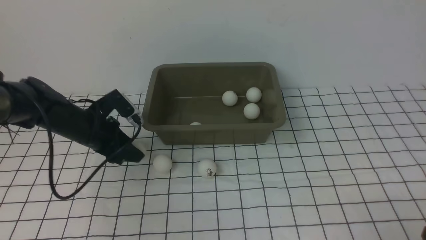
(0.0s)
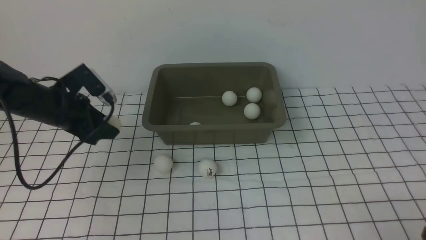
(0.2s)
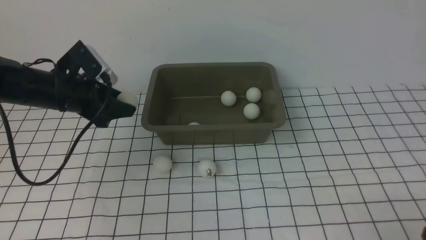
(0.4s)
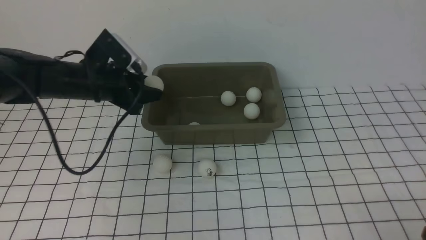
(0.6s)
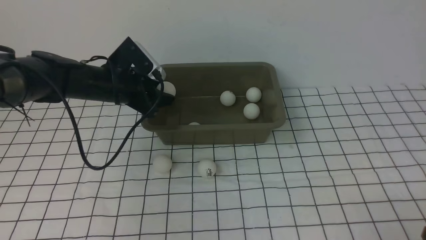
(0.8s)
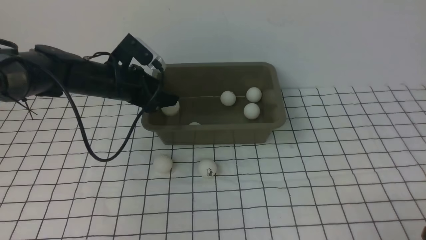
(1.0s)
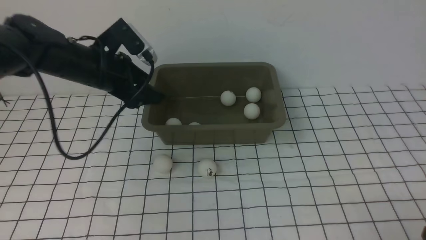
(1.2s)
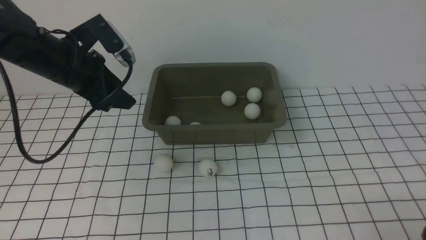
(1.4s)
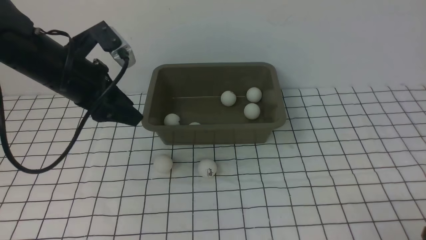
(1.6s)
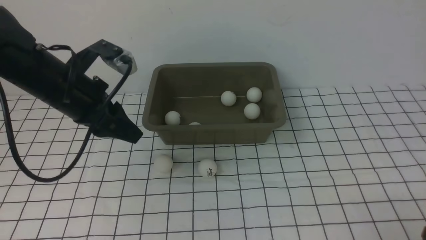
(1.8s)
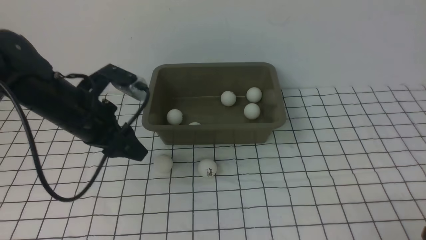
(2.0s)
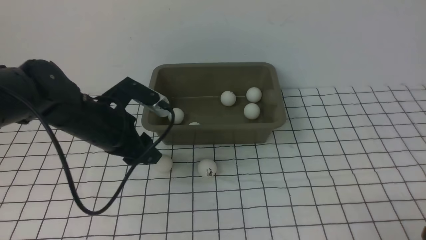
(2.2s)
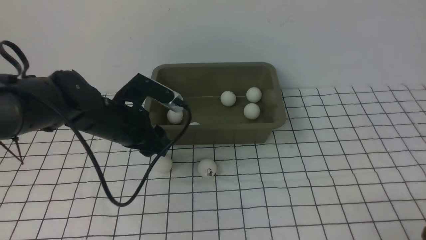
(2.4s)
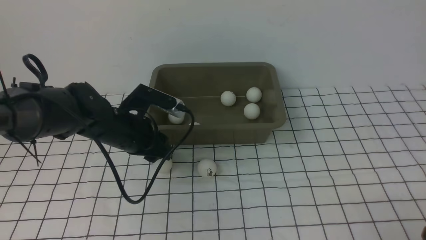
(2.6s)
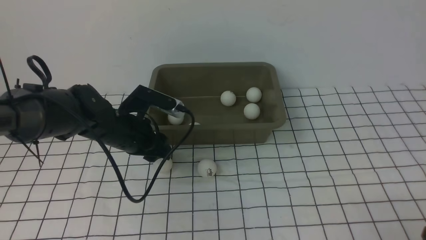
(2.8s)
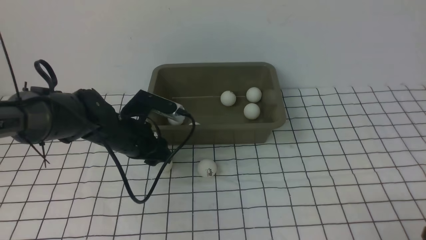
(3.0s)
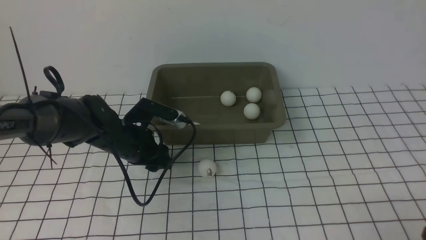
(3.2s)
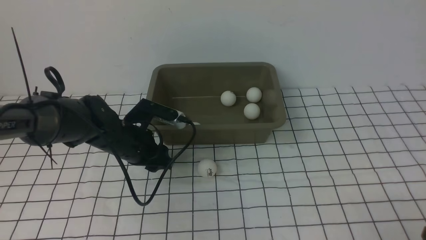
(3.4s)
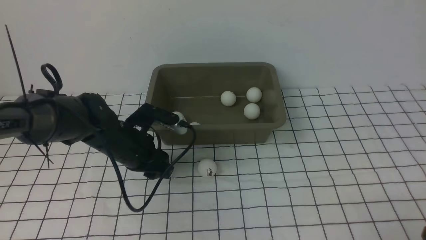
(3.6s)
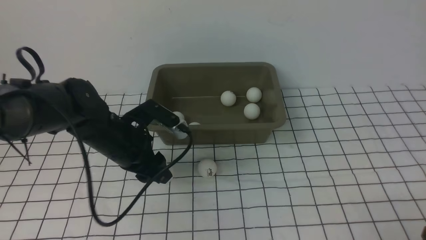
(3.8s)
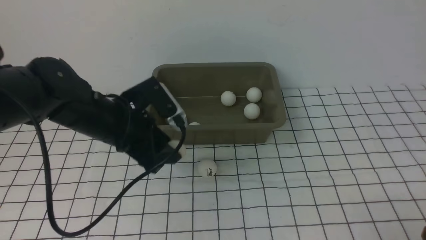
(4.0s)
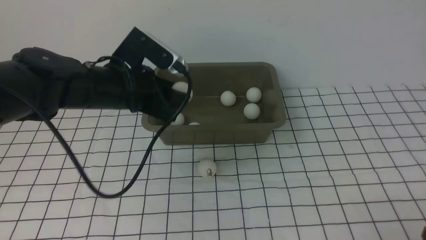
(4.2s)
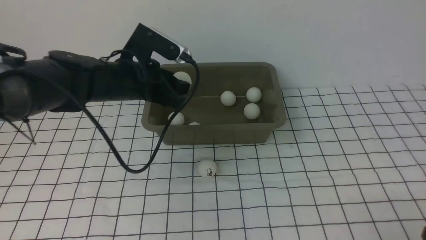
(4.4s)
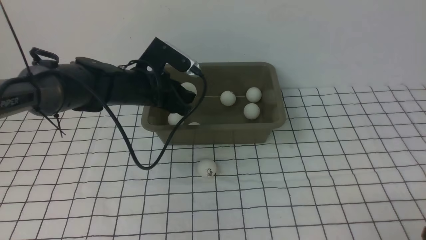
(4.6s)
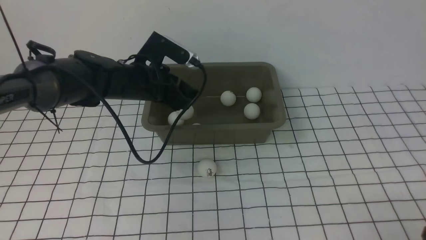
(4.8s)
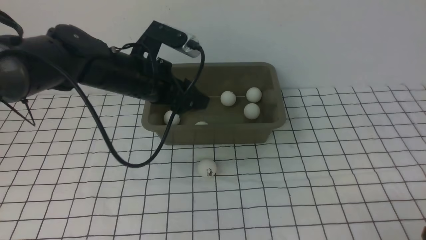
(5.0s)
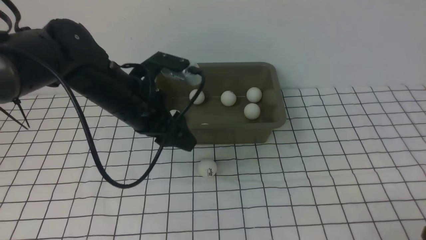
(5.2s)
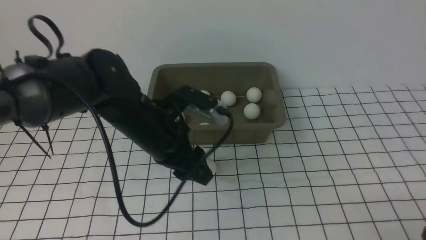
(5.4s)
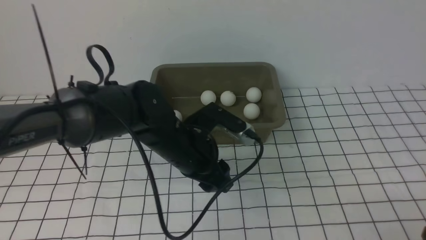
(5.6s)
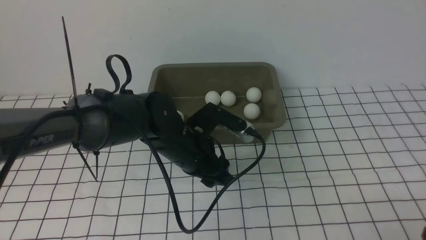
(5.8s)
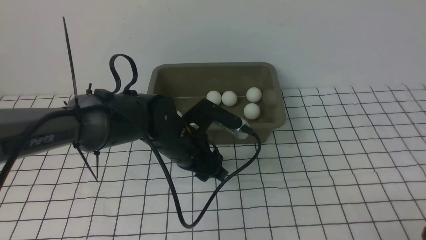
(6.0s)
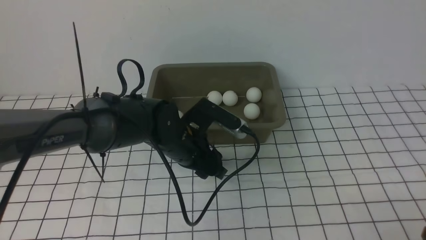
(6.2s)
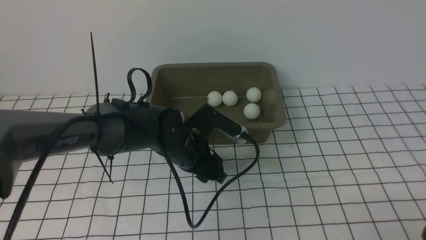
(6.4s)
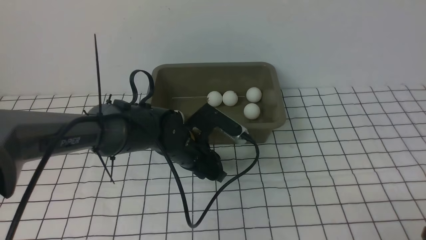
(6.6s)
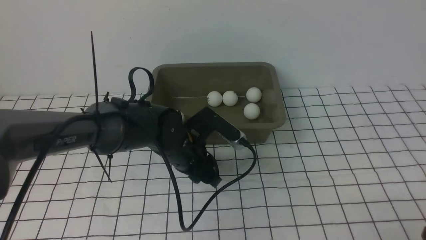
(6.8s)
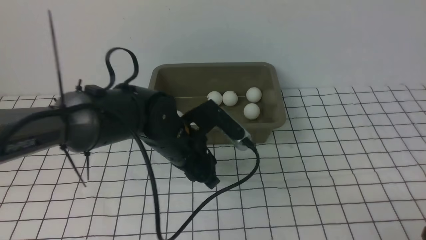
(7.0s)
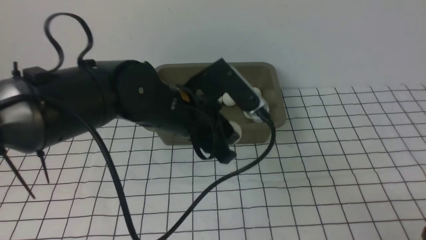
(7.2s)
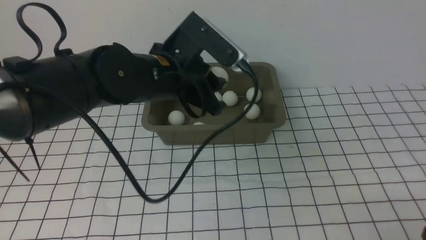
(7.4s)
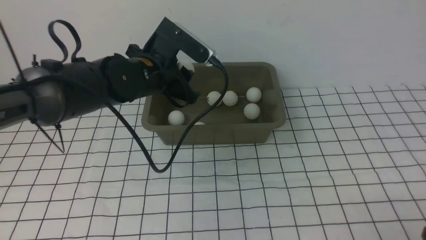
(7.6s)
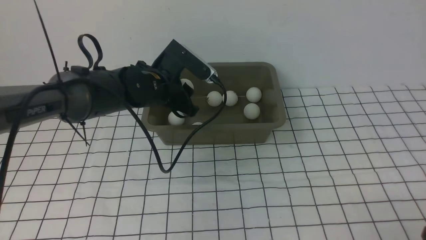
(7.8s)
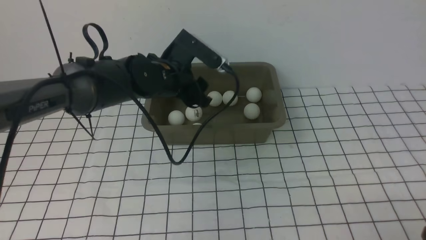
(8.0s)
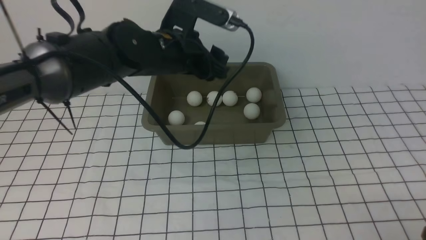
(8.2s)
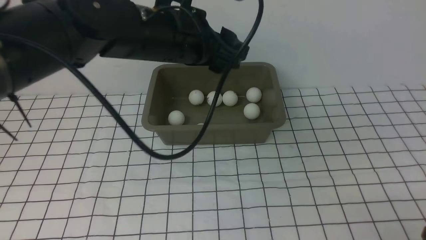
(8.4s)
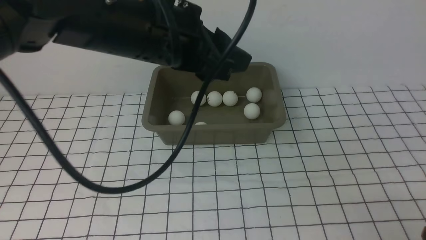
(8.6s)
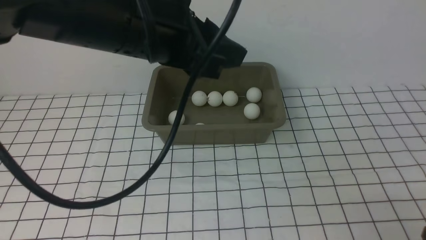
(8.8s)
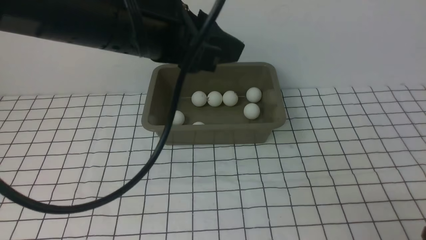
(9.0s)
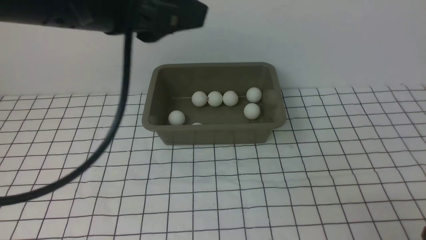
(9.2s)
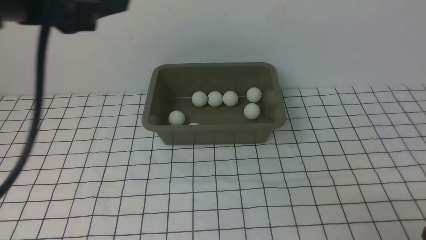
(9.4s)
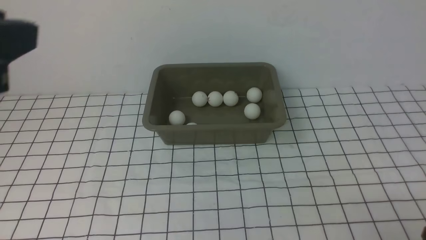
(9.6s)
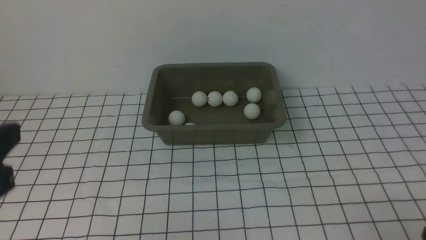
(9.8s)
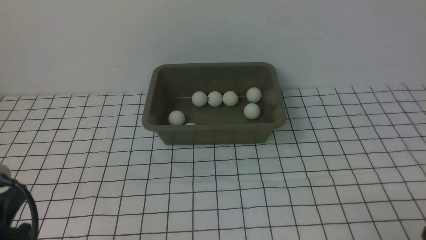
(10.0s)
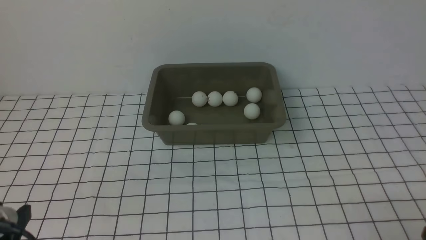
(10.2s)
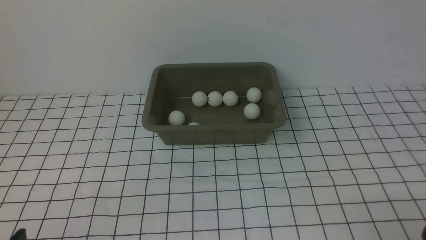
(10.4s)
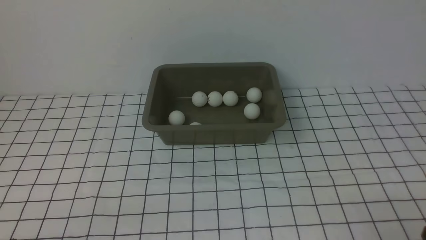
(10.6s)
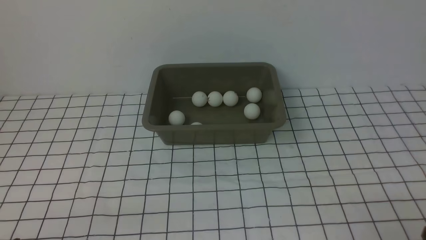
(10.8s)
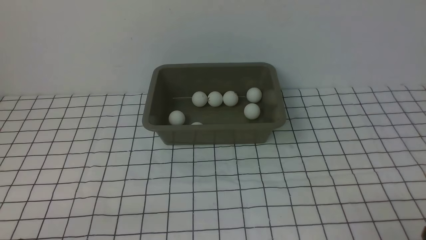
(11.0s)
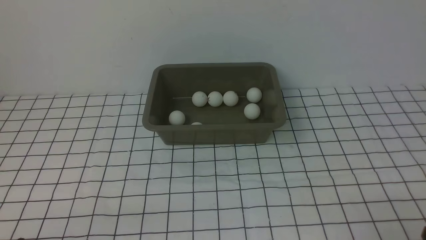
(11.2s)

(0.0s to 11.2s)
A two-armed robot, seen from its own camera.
Step, 0.4s - 1.0s: use the left arm to put the table tennis ball into the box.
Step, 1.4s - 4.0s: use the left arm to clamp the table tennis ball closest to it.
Step, 4.2s - 4.8s: use the left arm to put the table tennis ball into the box.
Step, 5.0s - 7.0s: use the left arm to clamp the table tennis ball closest to it.
Step, 7.2s - 8.2s: use the left arm to put the table tennis ball into the box.
0.0s - 1.6s: The left gripper goes about 10 cm upward, and opens and closes again.
1.6s - 3.2s: The left gripper is displaced downward and to the right by roughly 15 cm.
3.2s - 4.8s: The left gripper shifts some 10 cm upward, and opens up.
4.8s - 6.4s: The left gripper heads downward and to the right, covering roughly 10 cm, and closes.
6.4s - 8.0s: The left gripper moves up and down over about 20 cm, changing direction 2 times, and opens, then closes once more.
8.0s - 9.6s: The left gripper heads backward, to the left and downward, covering about 30 cm, and closes.
9.6s - 11.2s: The left gripper moves downward, roughly 10 cm.

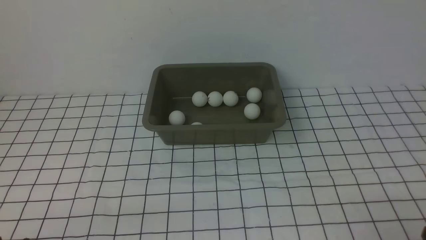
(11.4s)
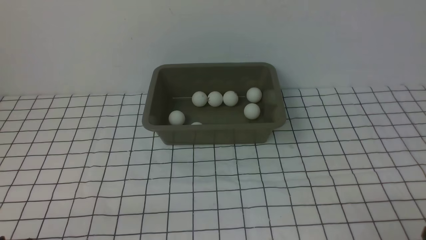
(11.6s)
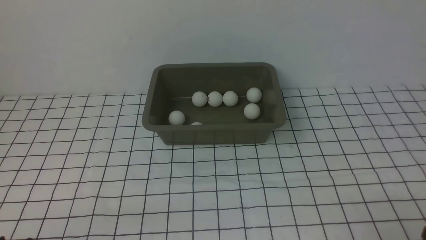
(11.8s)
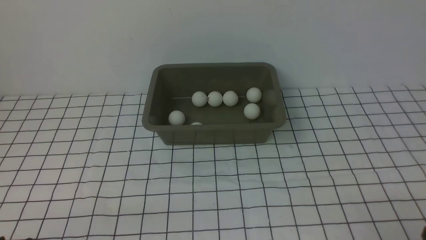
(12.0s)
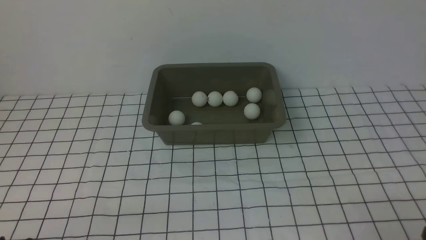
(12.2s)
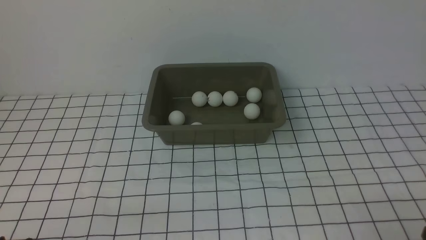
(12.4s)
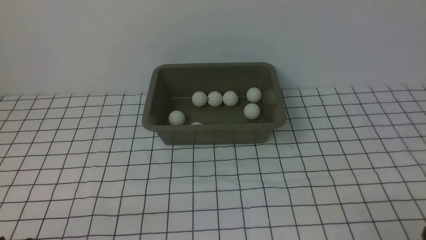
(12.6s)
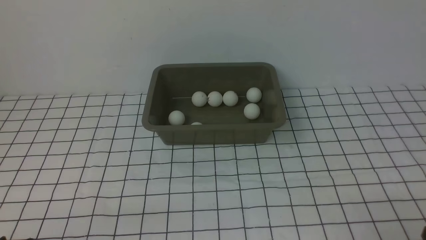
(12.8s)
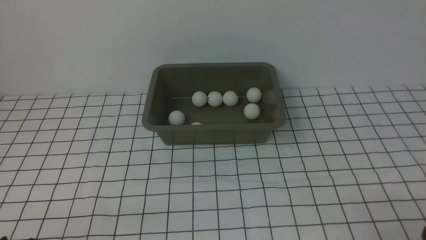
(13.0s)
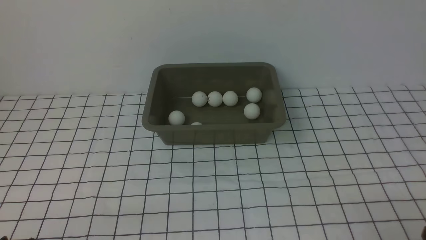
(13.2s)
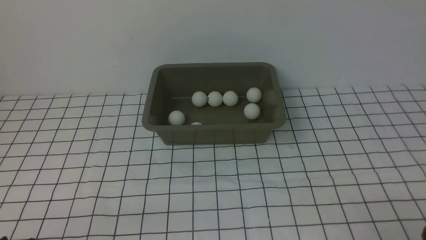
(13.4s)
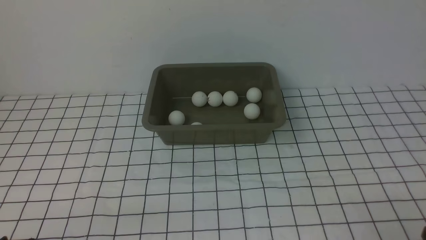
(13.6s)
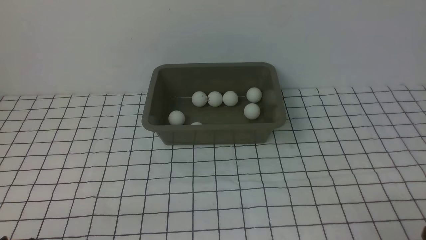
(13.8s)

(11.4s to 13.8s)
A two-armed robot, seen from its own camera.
11.4s - 13.8s: Both grippers stay put.
